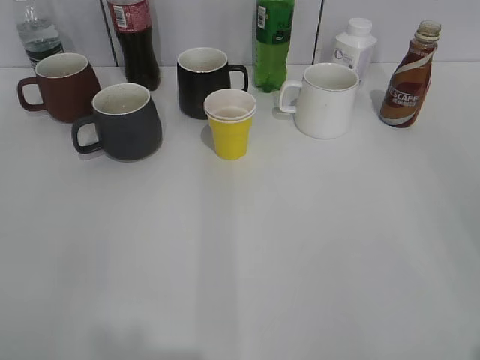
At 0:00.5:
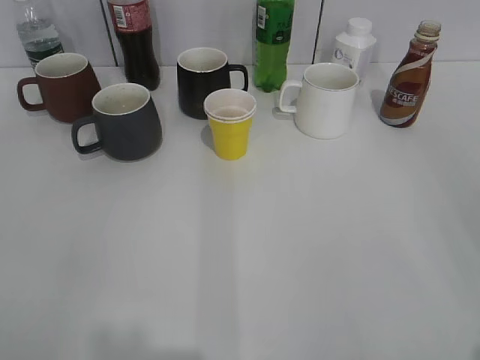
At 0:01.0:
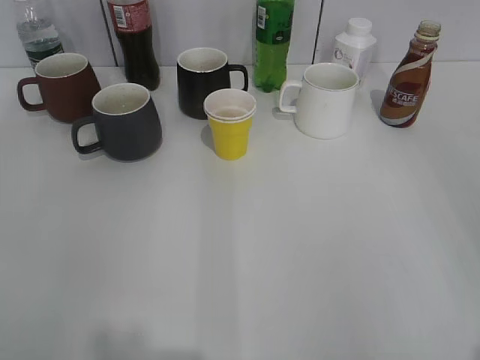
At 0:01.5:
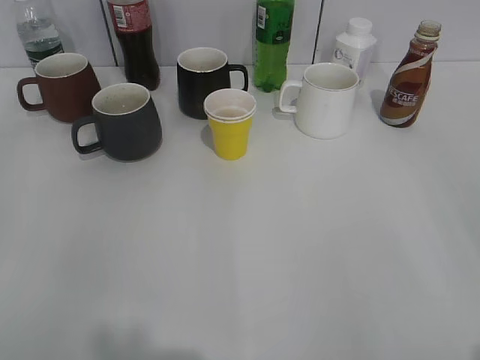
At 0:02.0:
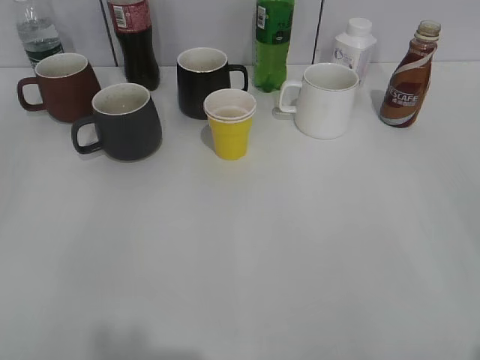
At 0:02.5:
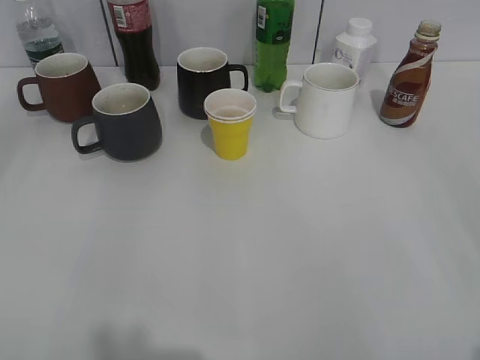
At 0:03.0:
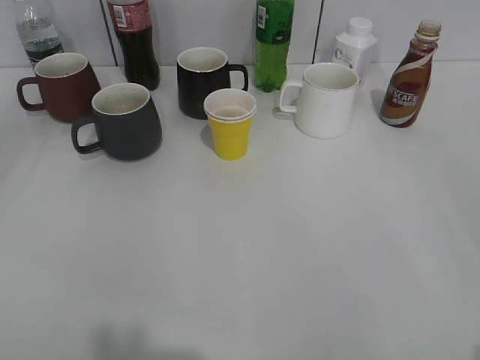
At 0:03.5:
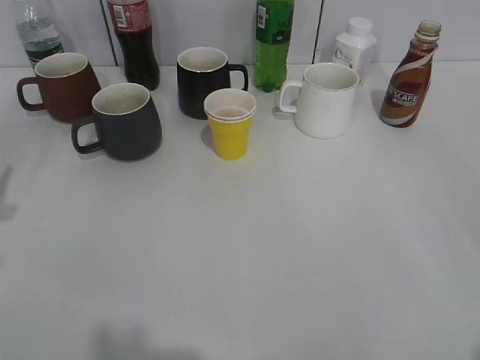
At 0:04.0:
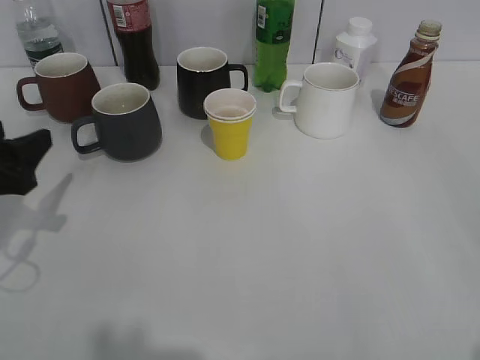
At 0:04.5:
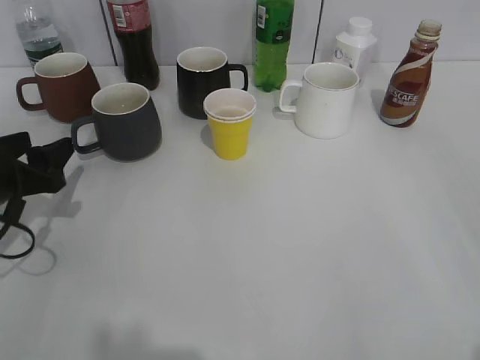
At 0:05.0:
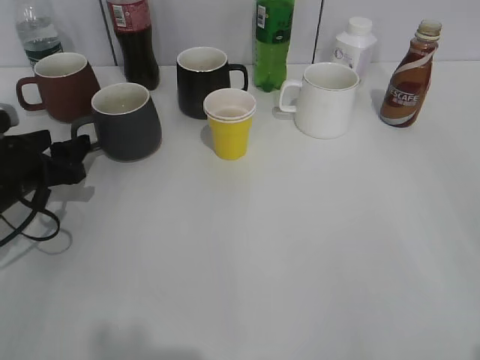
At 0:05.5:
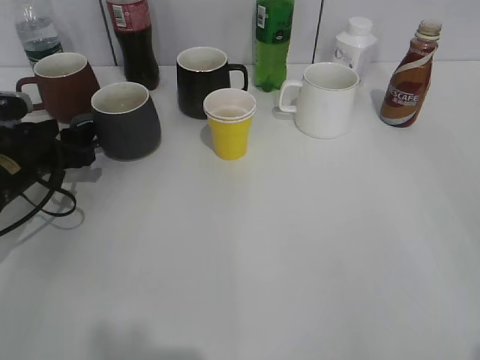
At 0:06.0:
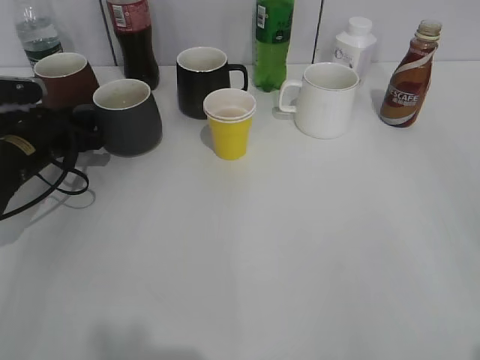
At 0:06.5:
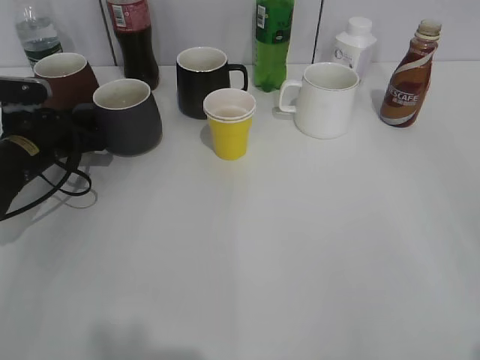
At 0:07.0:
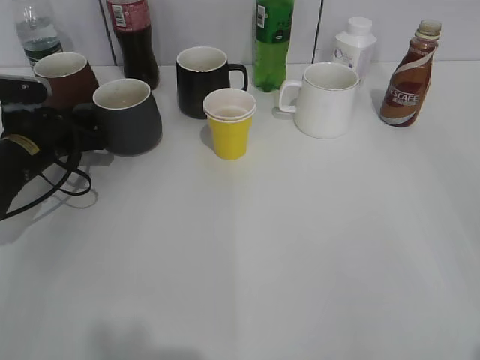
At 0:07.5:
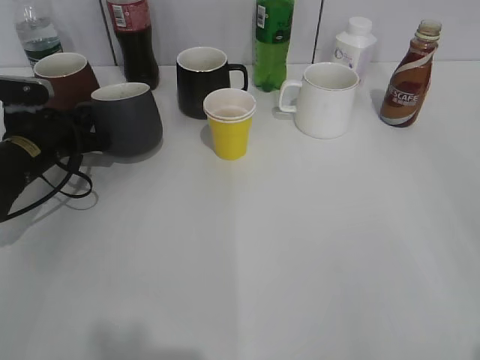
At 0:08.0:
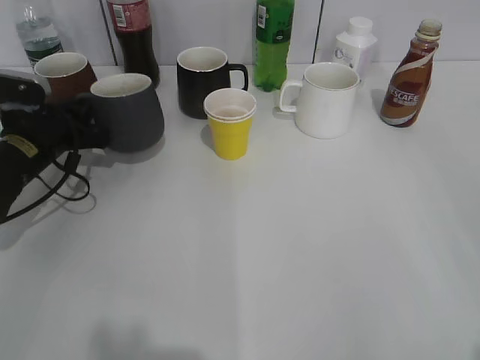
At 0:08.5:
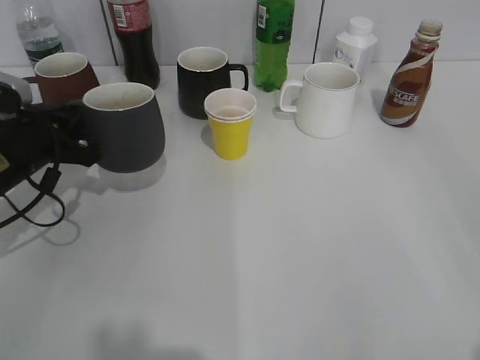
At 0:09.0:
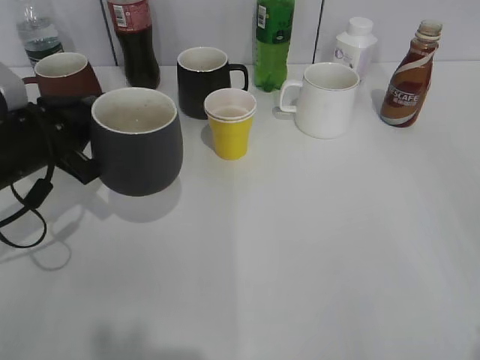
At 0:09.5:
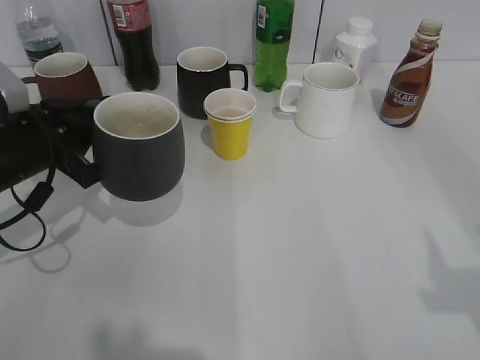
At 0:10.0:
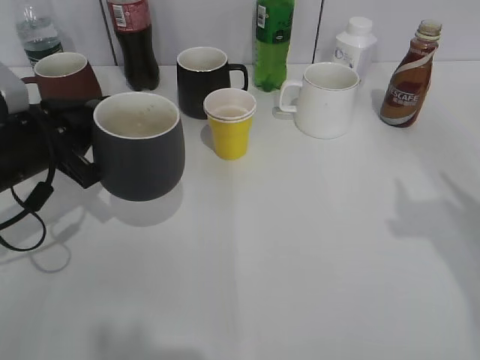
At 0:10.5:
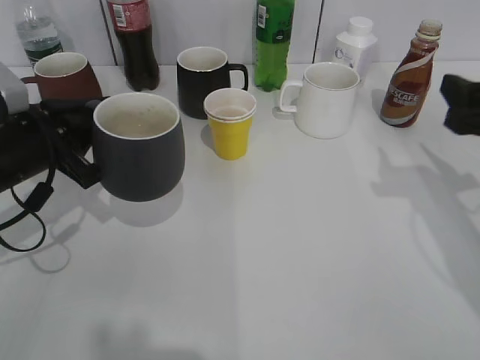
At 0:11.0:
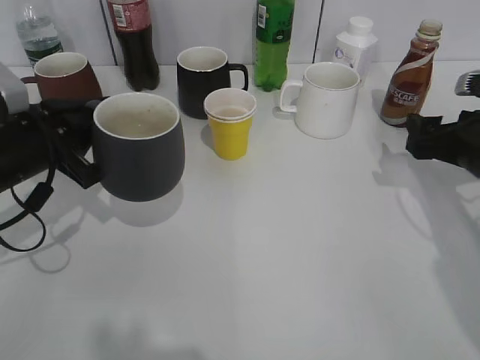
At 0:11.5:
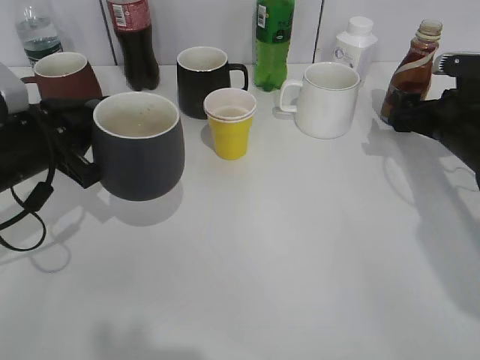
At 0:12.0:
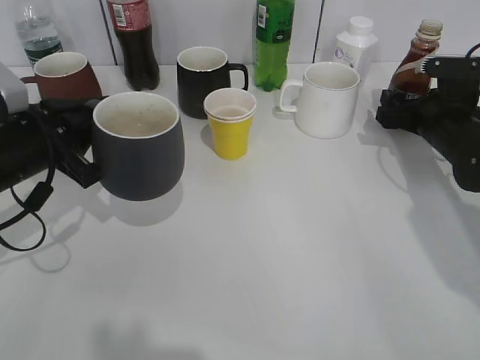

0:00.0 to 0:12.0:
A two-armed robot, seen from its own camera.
Step, 0:01.5 to 0:07.0: Grasp the grey cup with left gripper.
Step, 0:07.5 to 0:09.5: Lift the grey cup with left gripper.
0:02.0 to 0:04.0: The left gripper heads forward and downward, covering roughly 25 cm.
0:04.0 to 0:06.0: The left gripper goes about 15 cm forward and downward.
0:06.0 to 0:08.0: The left gripper closes.
0:08.0 to 0:10.0: The left gripper is displaced backward and upward by about 10 cm. Meanwhile the right gripper heads forward, covering about 15 cm.
0:10.0 to 0:12.0: The right gripper is displaced forward and downward by about 30 cm, and opens its fingers.

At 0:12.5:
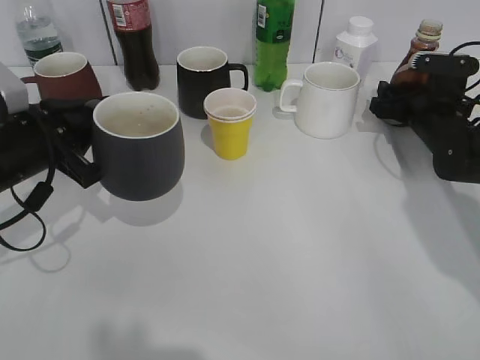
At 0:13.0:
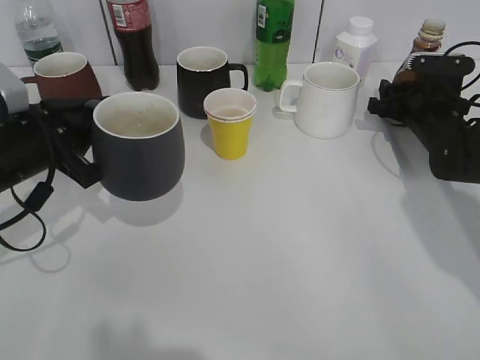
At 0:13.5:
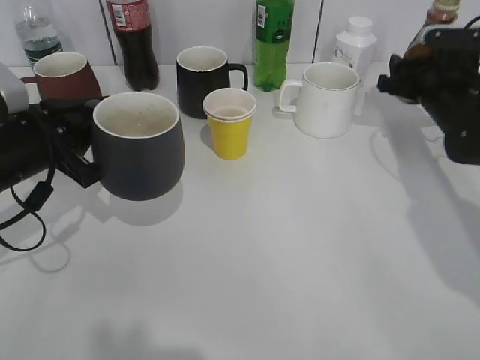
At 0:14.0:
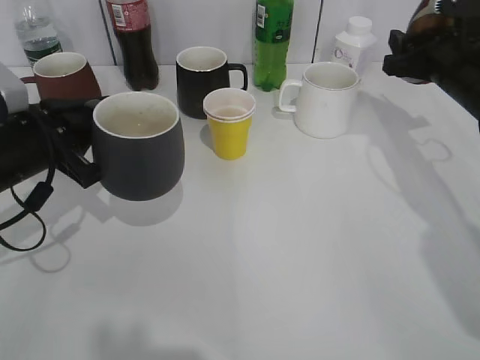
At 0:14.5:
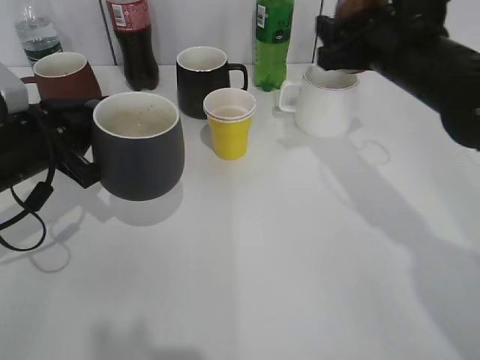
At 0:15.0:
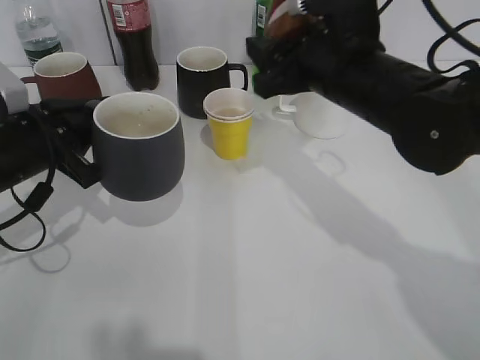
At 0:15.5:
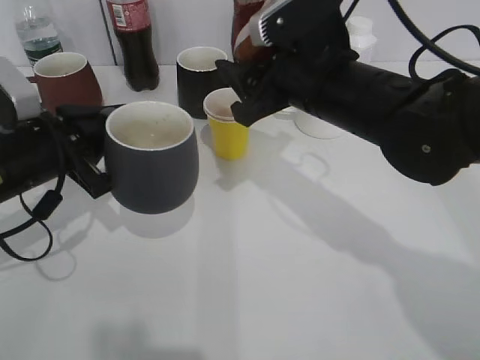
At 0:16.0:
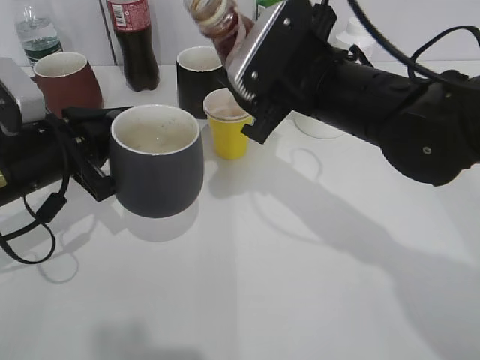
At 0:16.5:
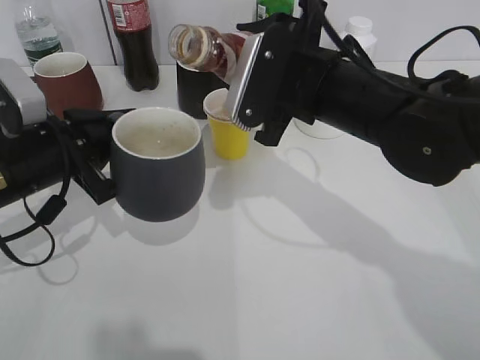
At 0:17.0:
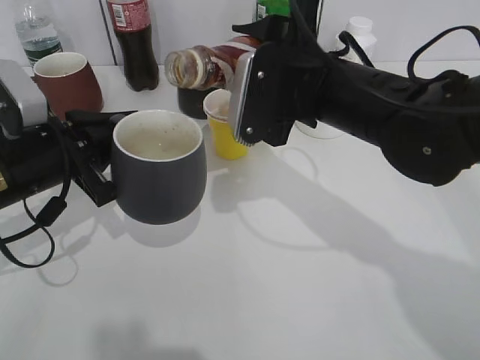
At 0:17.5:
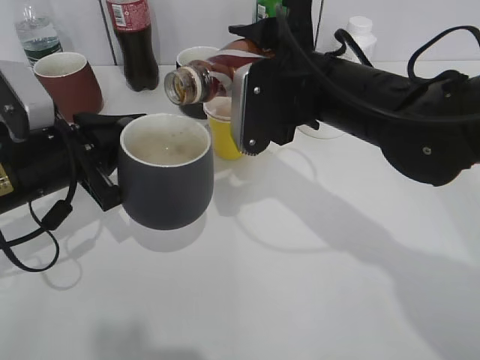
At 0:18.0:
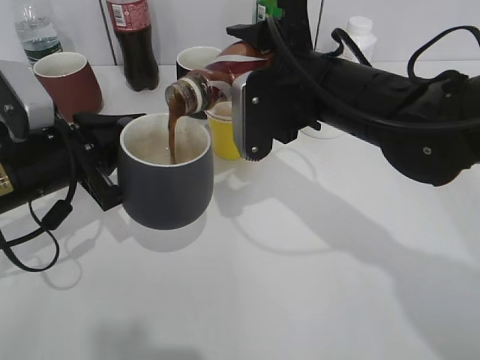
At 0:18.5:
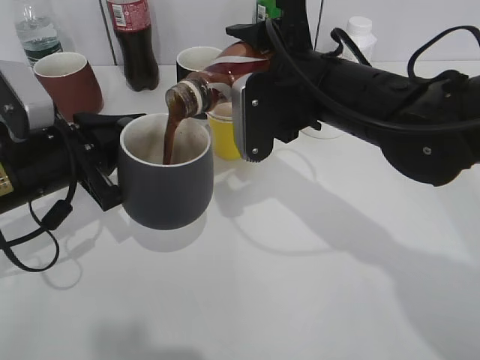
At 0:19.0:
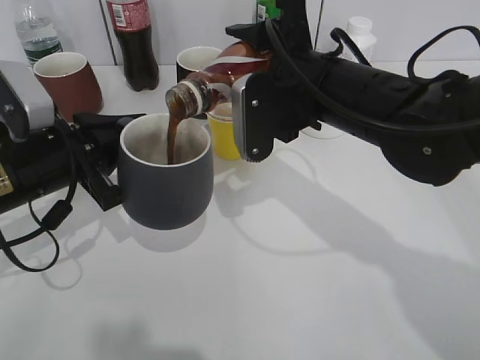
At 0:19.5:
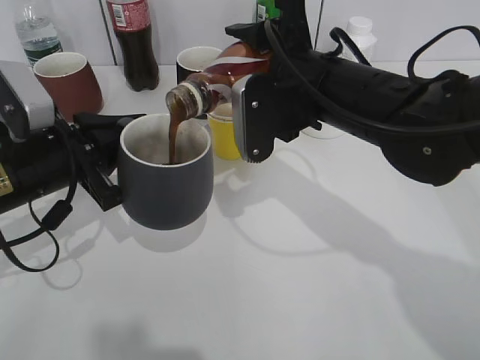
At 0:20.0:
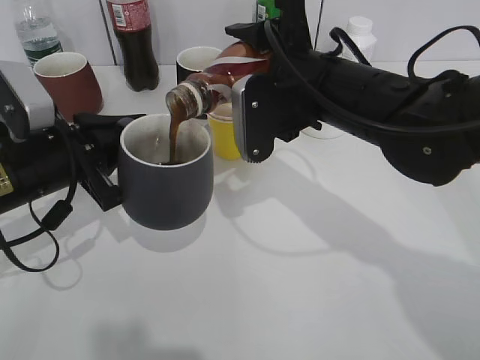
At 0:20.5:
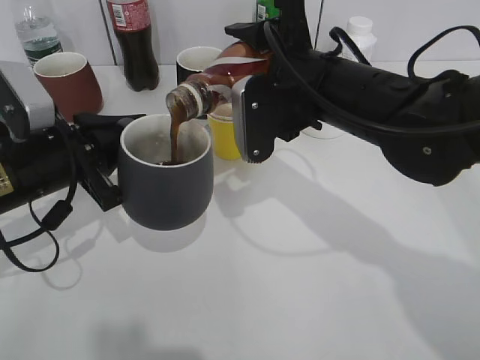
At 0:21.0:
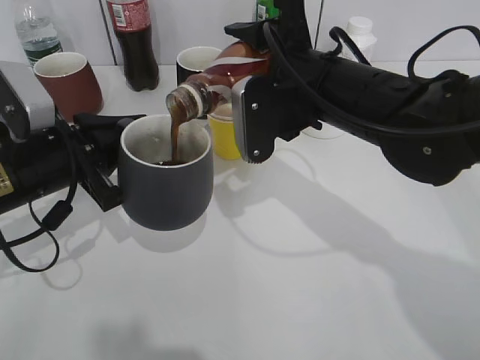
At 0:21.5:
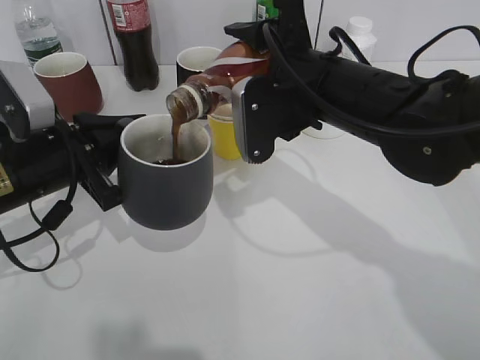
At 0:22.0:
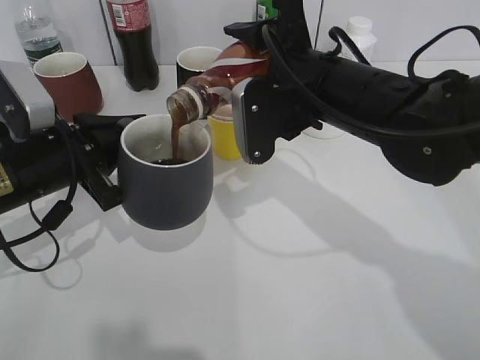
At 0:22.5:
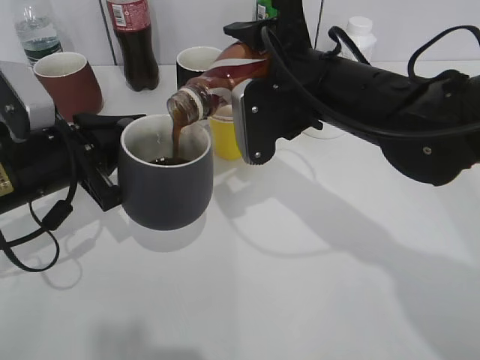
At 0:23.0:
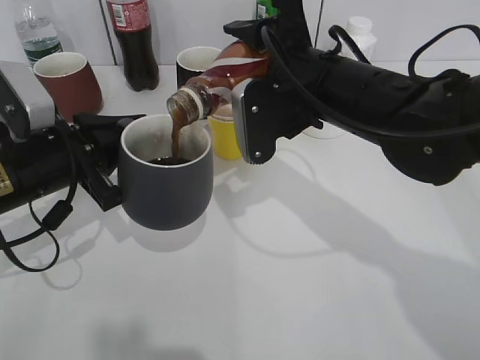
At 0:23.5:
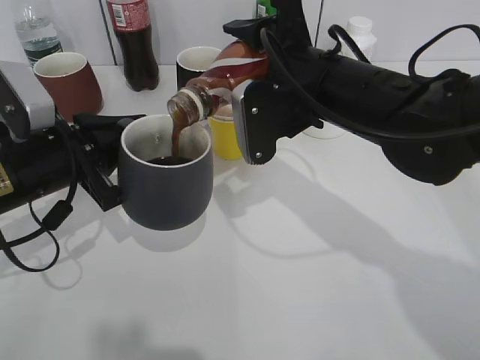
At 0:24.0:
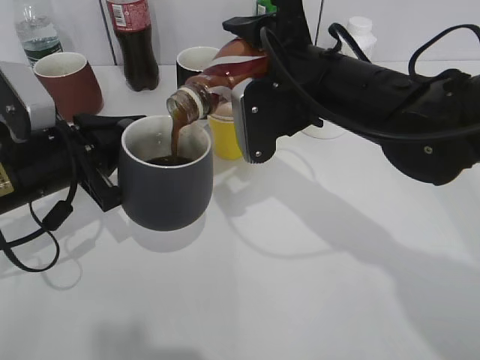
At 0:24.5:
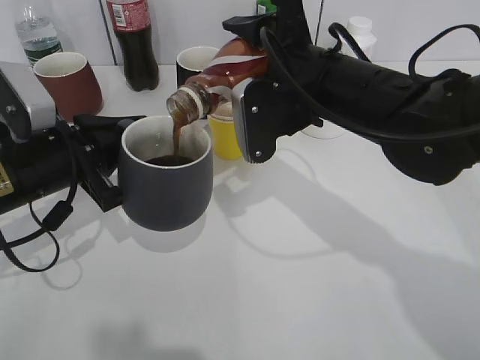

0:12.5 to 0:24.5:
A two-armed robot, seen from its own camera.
0:12.5 to 0:14.5: The right gripper shifts about 20 cm upward, to the left and backward, and closes its fingers.
0:14.5 to 0:16.5: The right gripper heads to the left and backward, covering approximately 10 cm.
0:18.5 to 0:22.5: Both grippers stay about where they are.
0:22.5 to 0:24.5: Both grippers stay about where they are.

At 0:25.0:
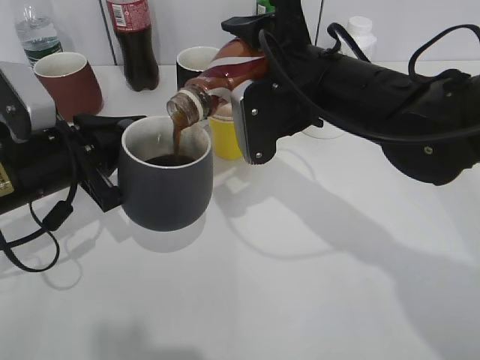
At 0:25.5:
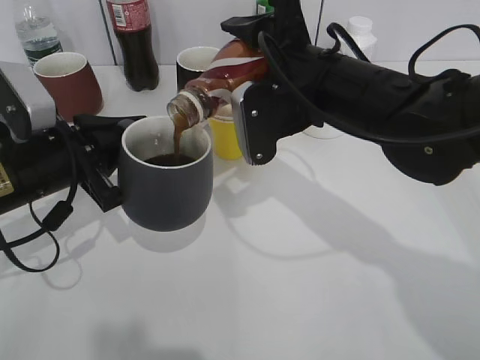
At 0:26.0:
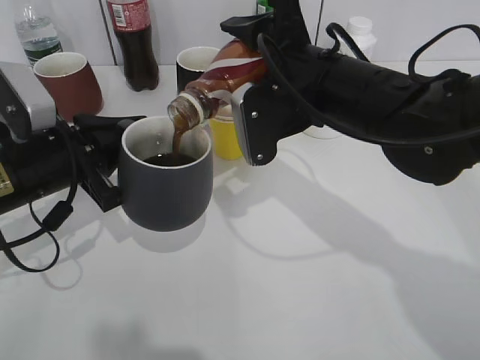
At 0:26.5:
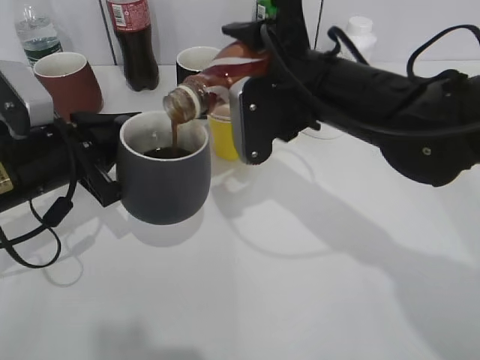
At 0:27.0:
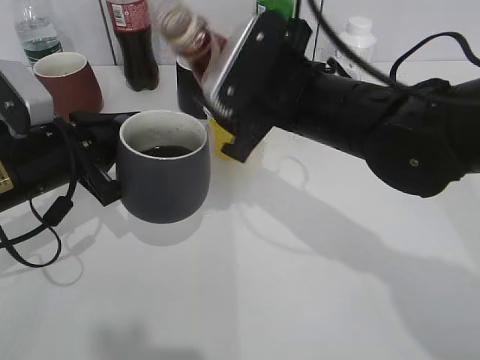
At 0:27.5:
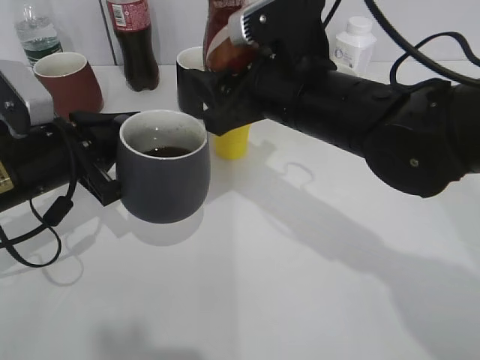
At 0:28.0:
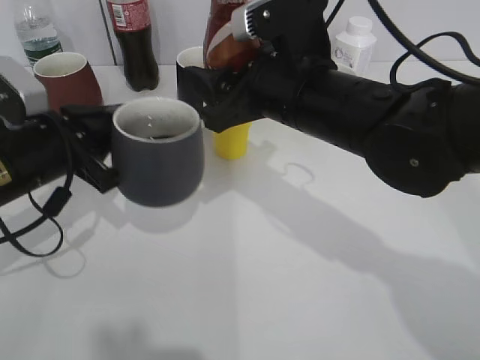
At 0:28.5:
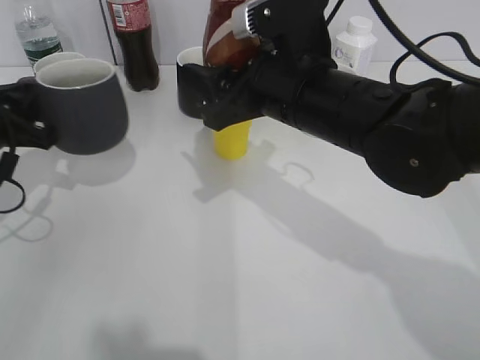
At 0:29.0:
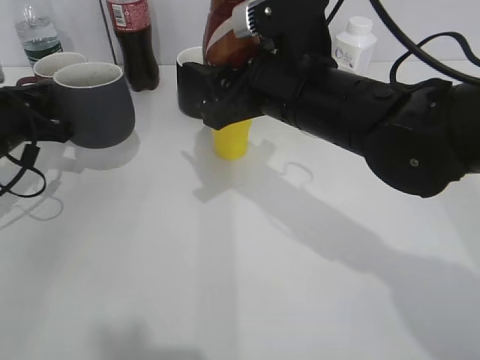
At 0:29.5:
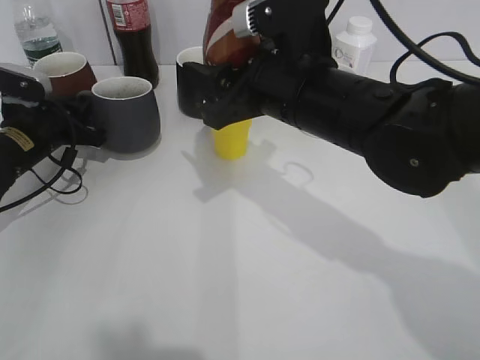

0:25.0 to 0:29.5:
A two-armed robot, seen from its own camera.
0:27.0 to 0:29.5: The left gripper goes roughly 15 cm forward, to the left and downward.
